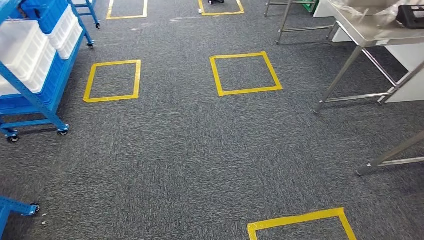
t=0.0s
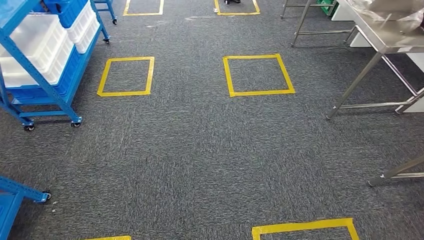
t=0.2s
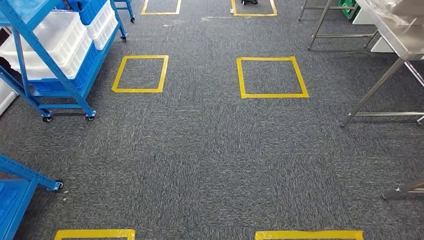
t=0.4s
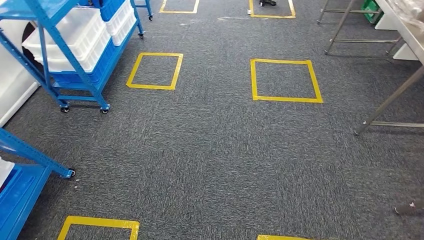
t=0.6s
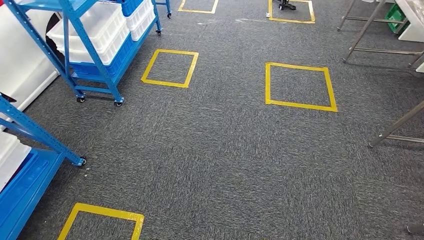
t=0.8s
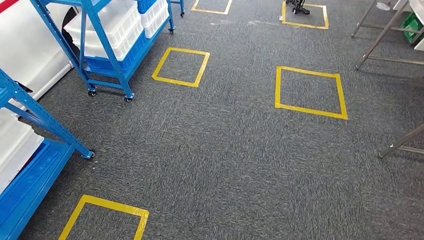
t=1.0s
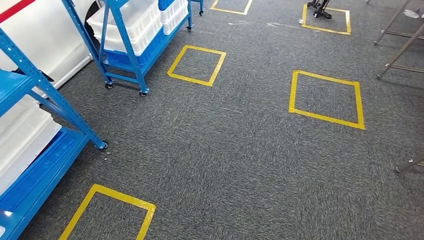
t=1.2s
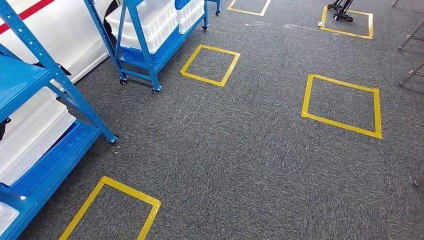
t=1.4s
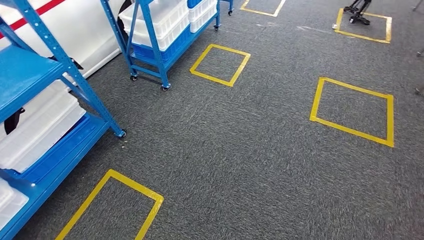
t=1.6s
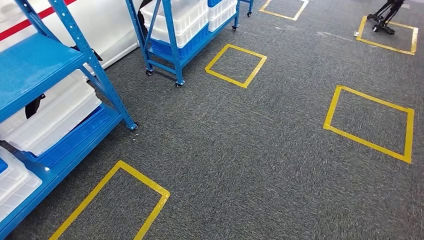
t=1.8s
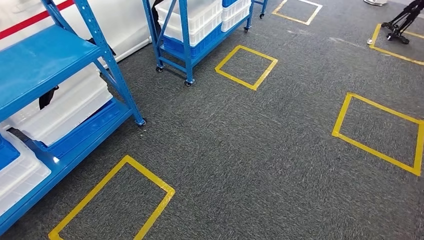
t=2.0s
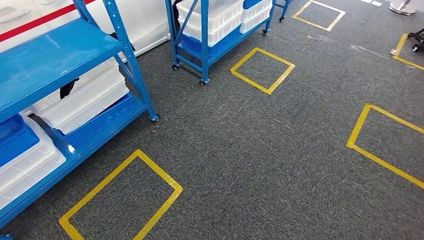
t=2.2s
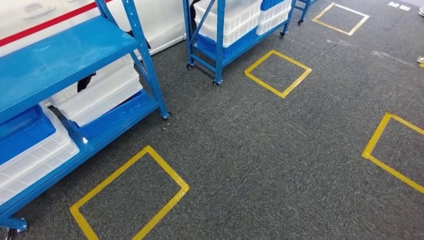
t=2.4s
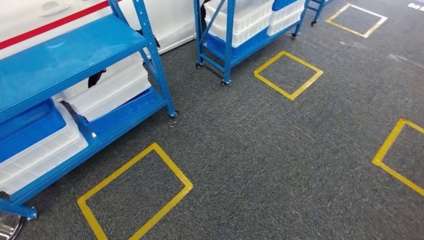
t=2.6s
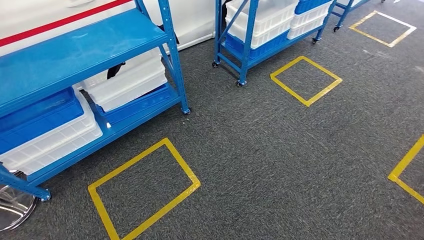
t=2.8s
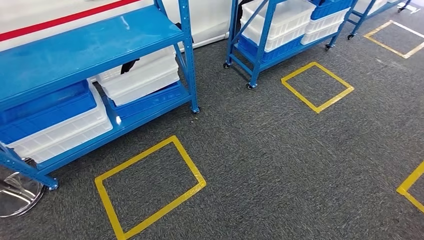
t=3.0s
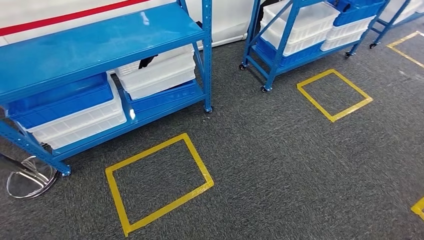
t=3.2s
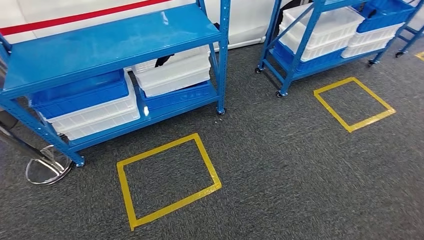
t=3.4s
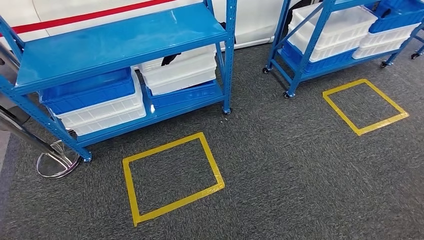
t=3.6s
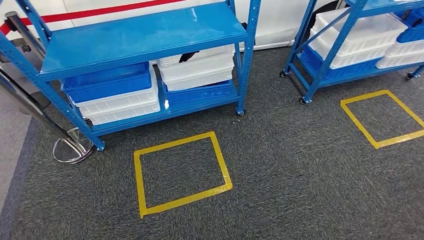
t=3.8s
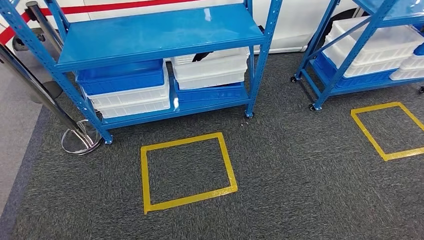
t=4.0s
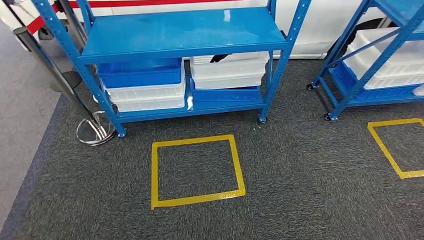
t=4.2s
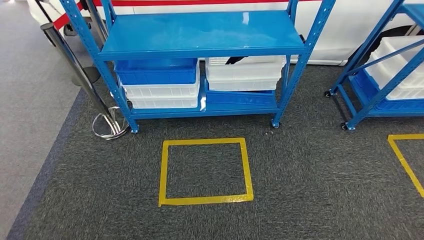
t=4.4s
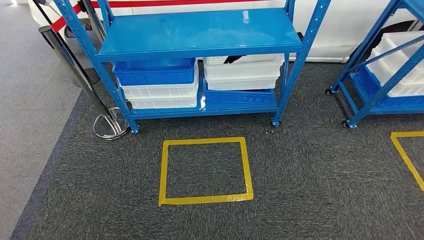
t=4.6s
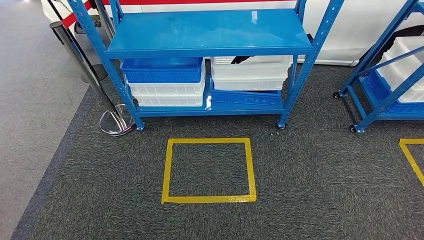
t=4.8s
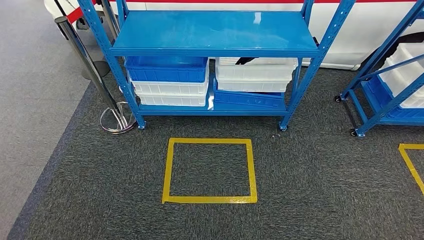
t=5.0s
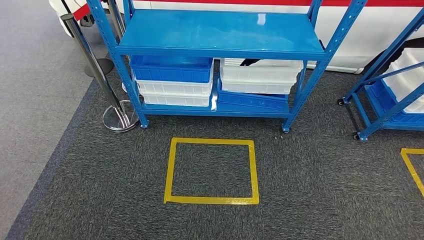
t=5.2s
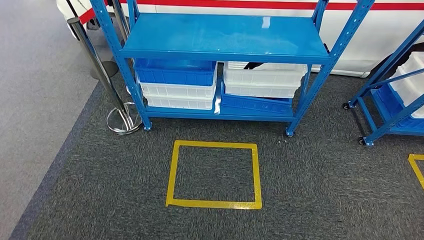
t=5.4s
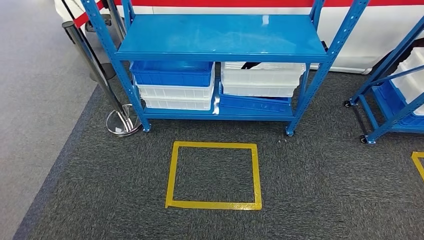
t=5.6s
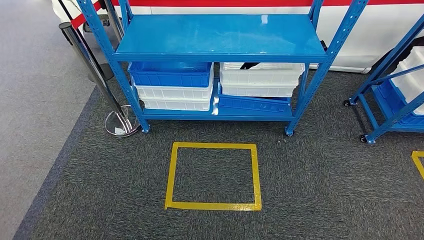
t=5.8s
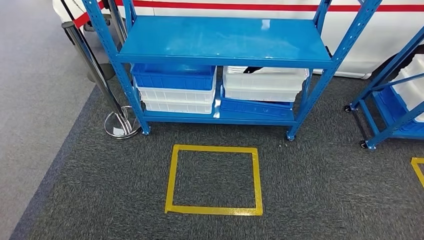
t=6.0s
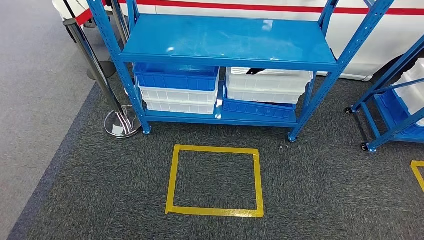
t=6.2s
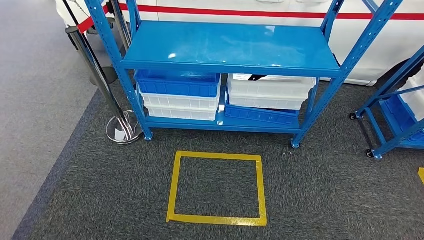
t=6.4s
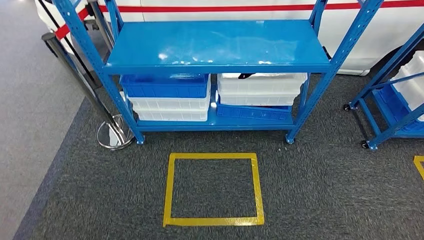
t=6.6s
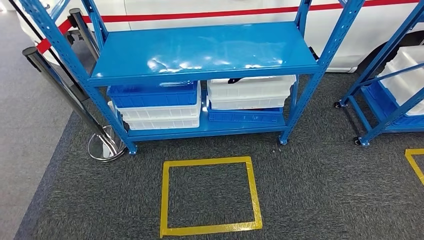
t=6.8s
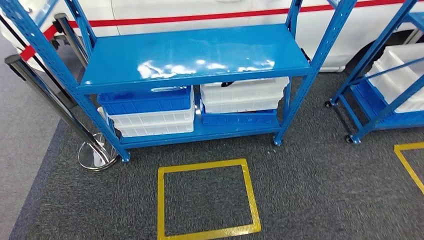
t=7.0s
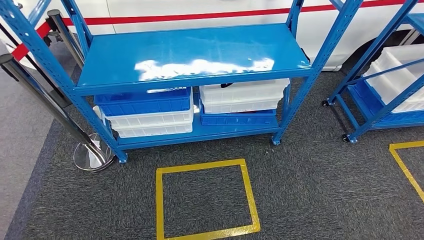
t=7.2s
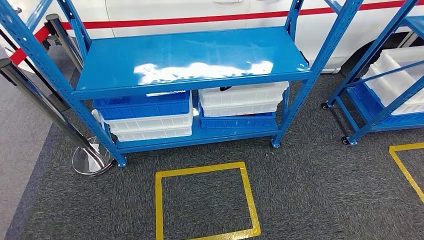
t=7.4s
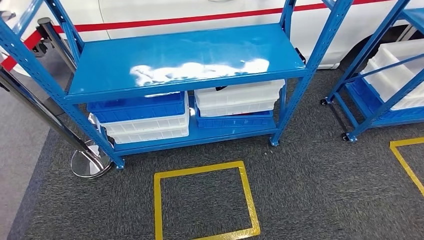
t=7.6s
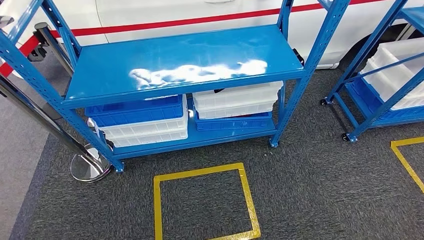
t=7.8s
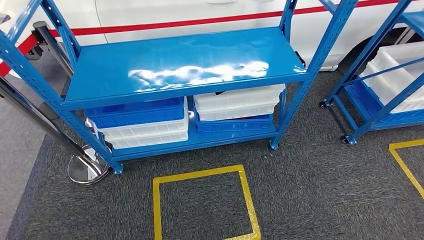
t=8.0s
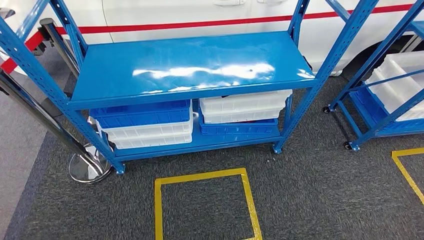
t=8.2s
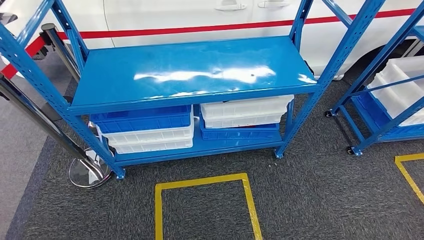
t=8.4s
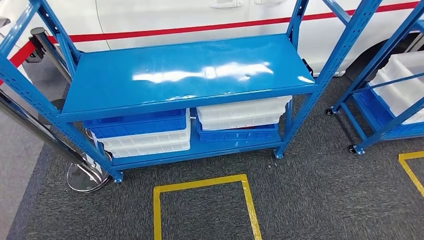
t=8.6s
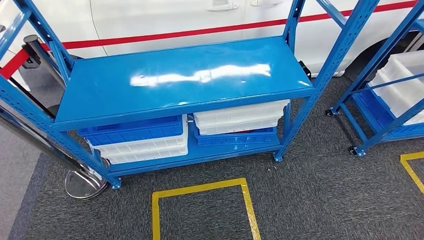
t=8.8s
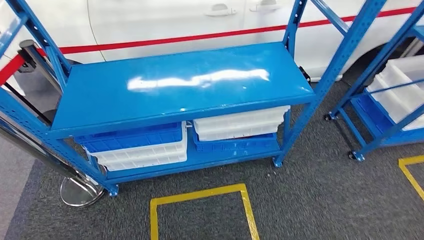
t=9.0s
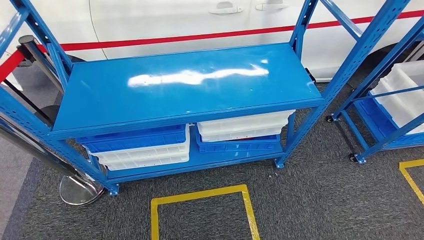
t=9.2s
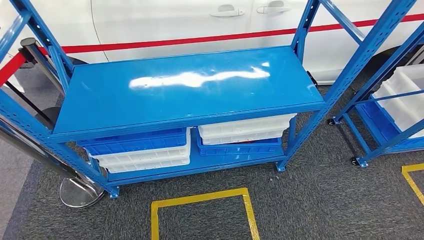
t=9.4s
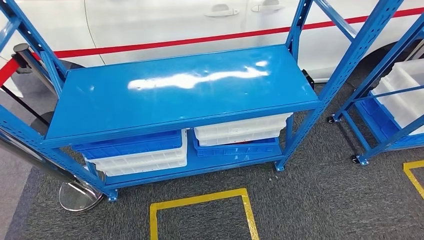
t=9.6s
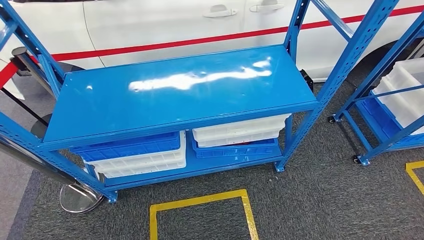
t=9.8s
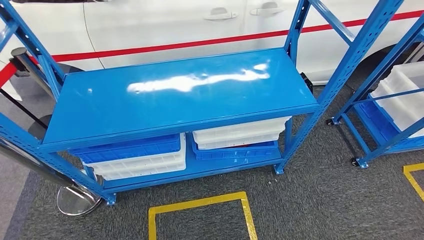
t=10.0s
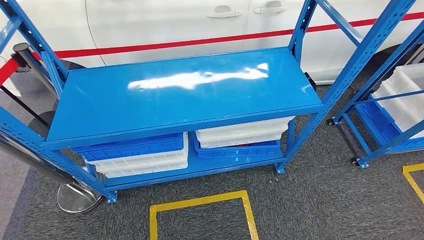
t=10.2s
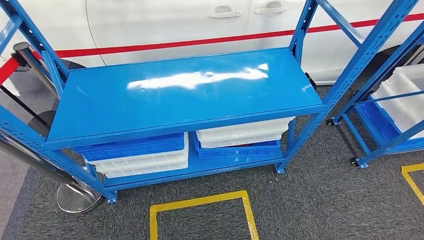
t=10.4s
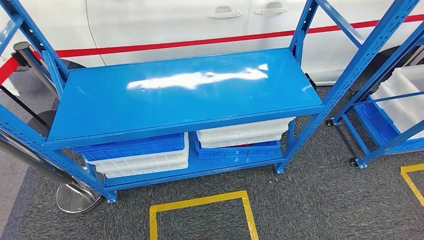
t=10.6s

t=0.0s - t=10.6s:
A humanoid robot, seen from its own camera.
Step, t=0.0s - t=10.6s: Move to the initial position of the shelf.

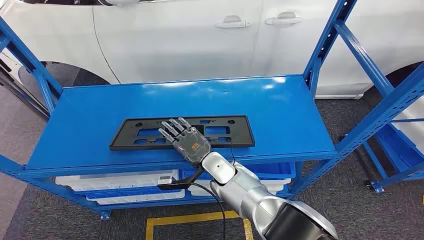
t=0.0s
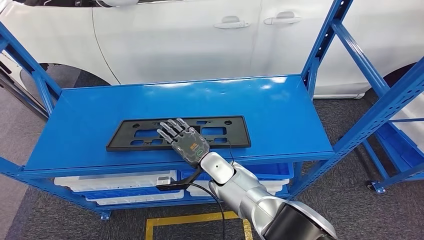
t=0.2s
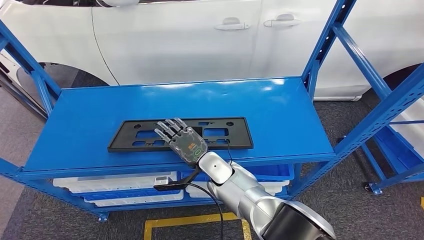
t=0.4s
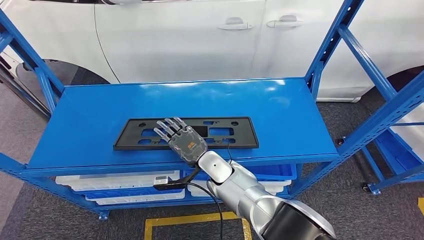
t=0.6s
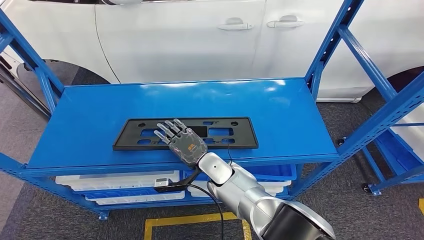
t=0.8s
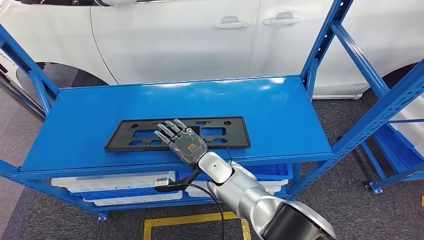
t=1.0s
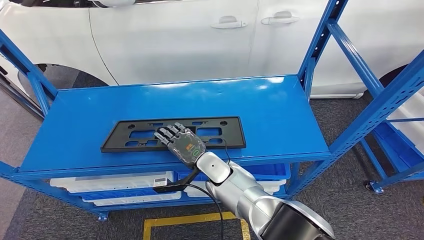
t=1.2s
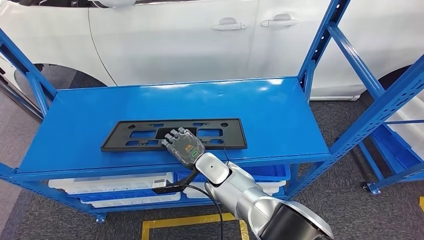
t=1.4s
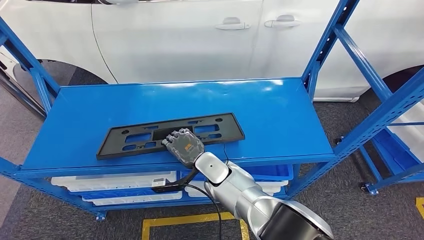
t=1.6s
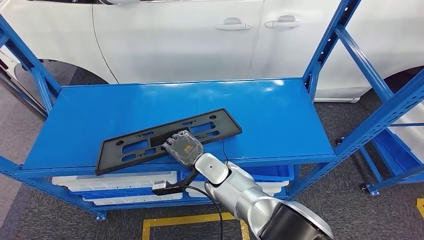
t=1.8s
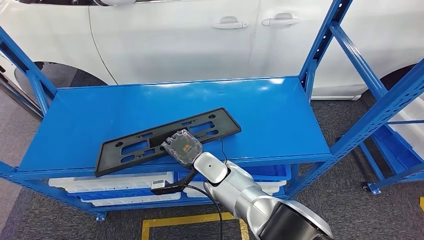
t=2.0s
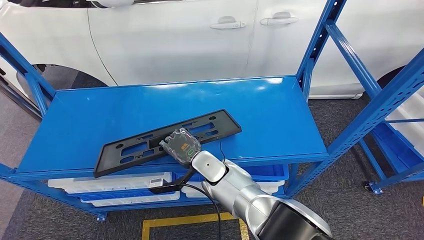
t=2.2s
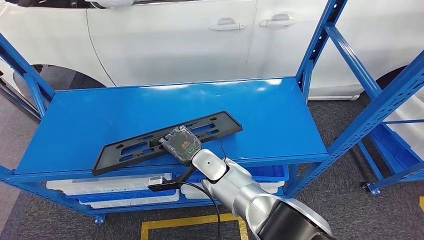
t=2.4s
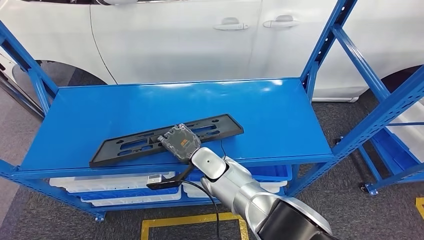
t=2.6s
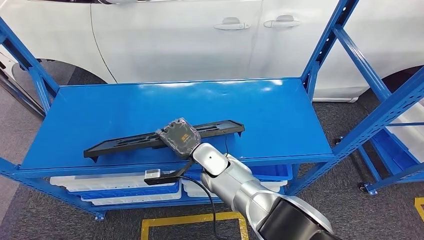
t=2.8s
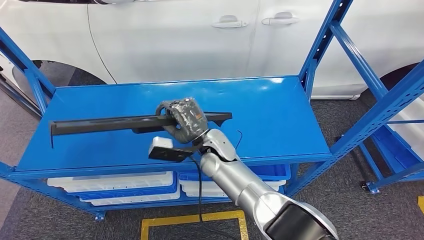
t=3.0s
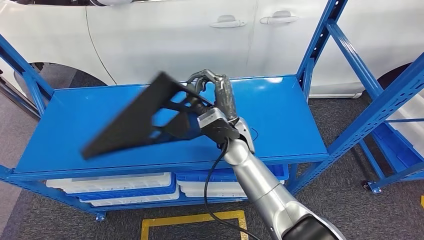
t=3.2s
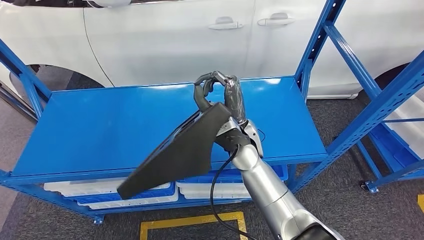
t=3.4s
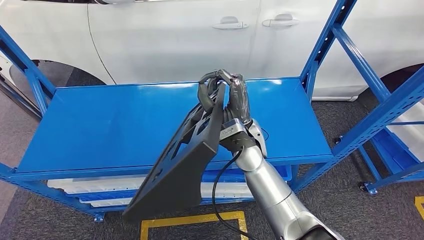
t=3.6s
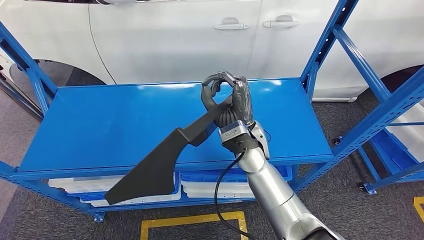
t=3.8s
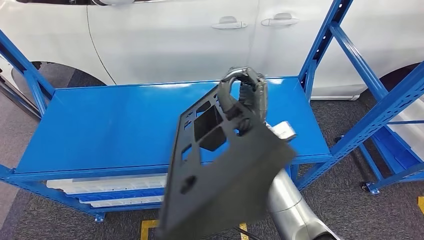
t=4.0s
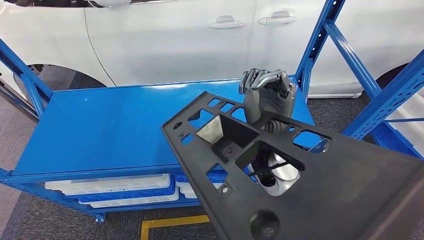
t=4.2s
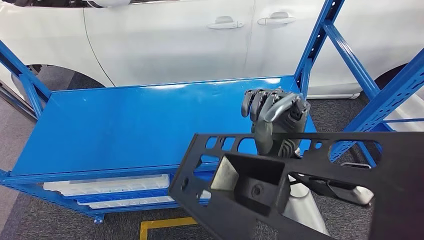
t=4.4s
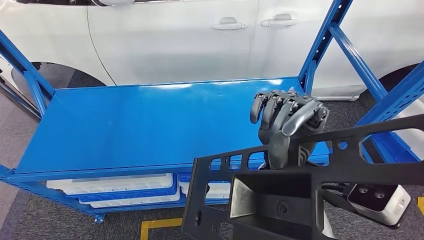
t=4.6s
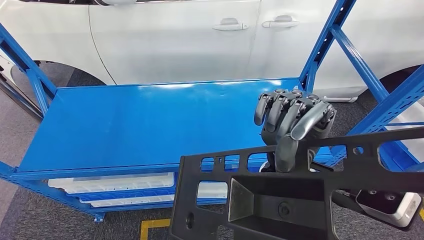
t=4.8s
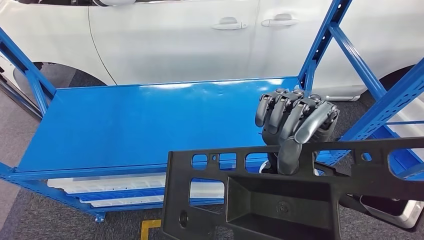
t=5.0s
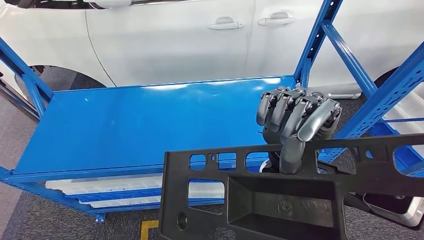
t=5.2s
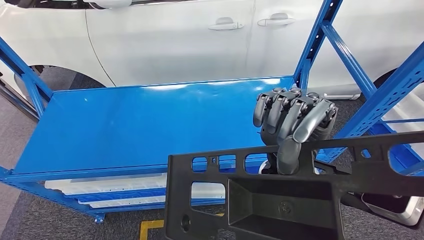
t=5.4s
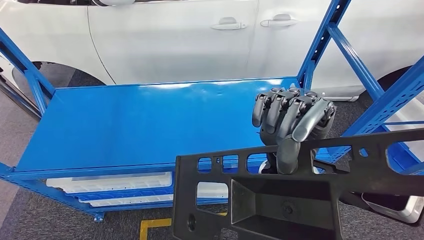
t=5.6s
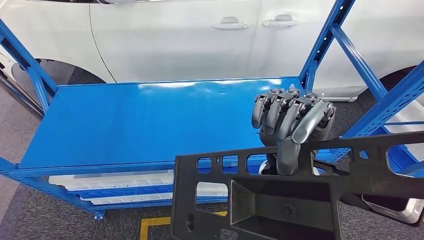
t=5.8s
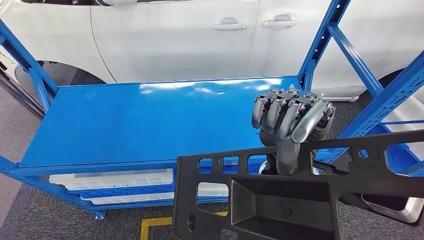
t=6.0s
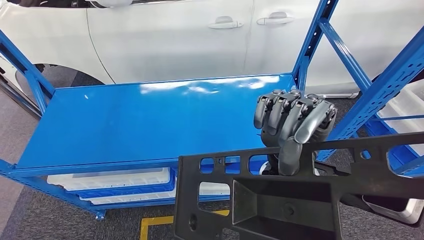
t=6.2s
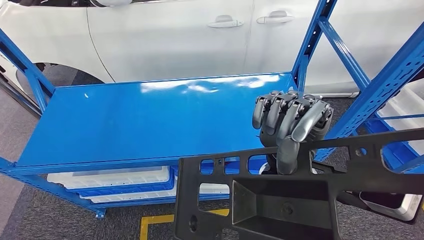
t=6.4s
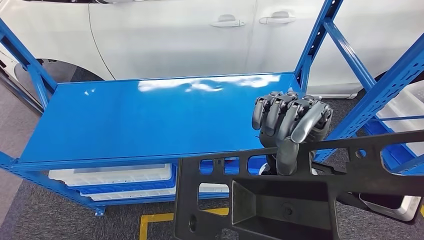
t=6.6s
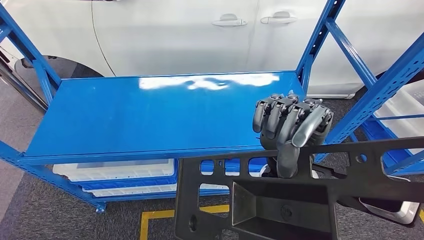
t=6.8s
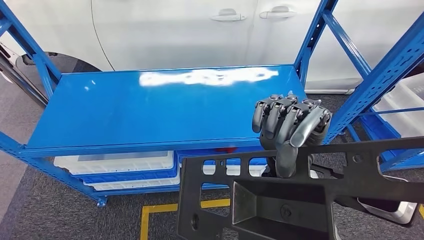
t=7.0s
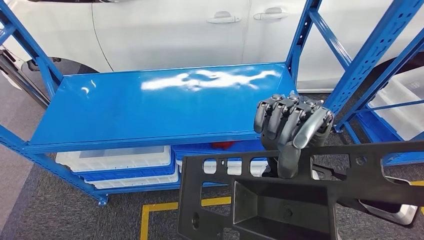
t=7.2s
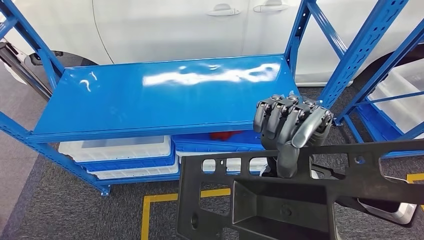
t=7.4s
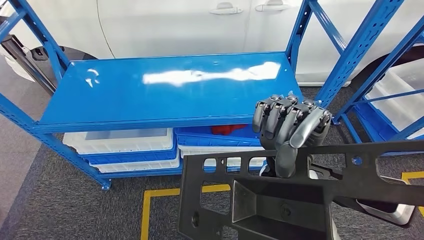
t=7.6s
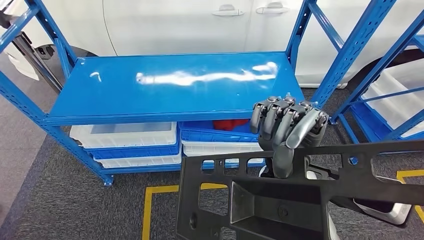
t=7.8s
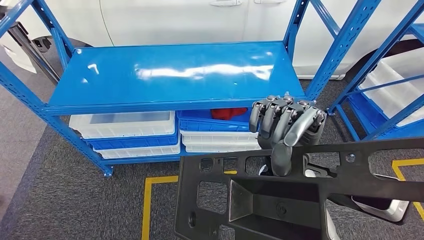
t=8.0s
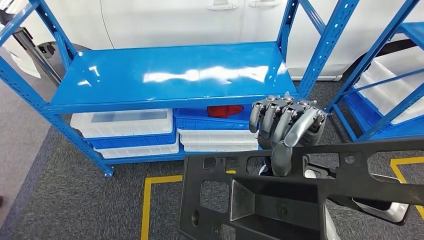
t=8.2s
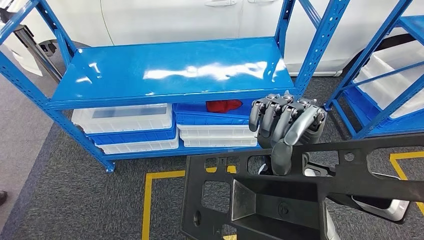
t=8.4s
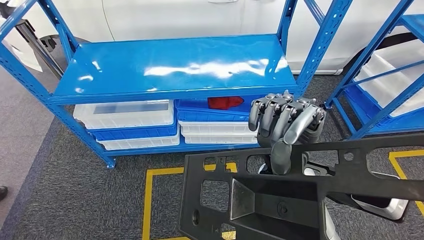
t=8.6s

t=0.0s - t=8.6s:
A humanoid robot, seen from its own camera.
Step, t=0.0s - t=6.4s: Pick up the large material from the shelf.
